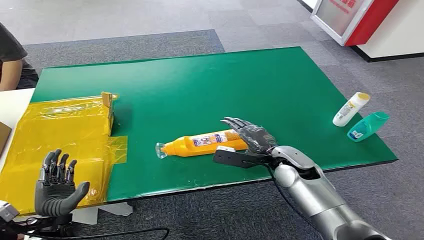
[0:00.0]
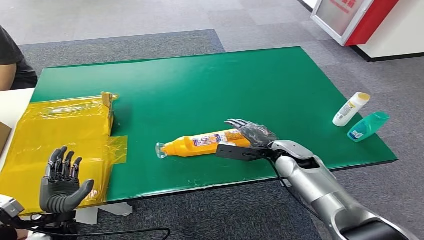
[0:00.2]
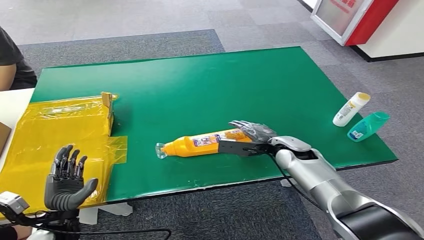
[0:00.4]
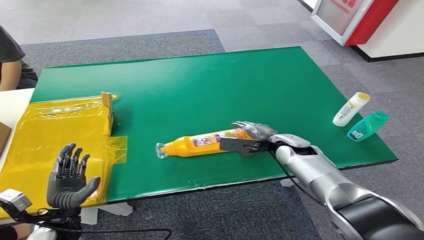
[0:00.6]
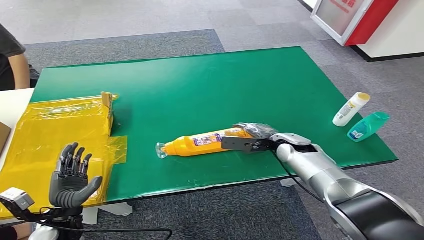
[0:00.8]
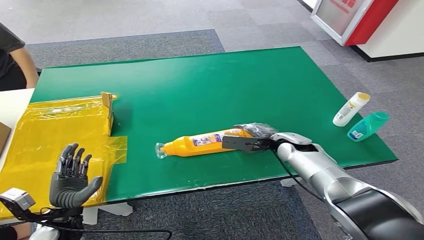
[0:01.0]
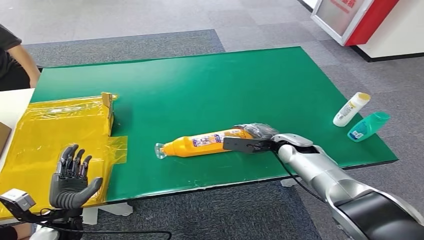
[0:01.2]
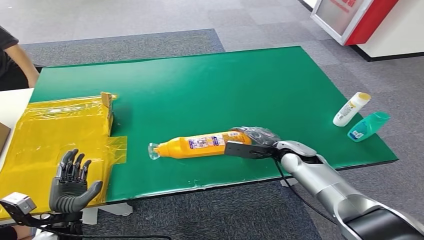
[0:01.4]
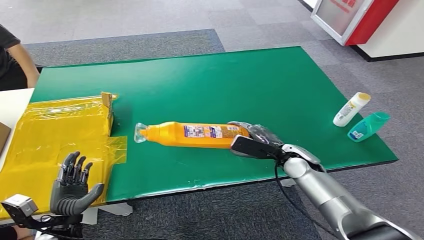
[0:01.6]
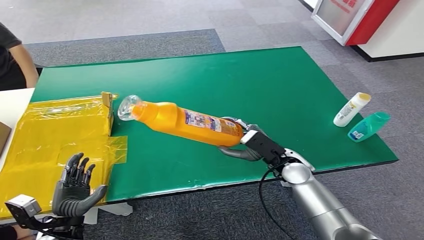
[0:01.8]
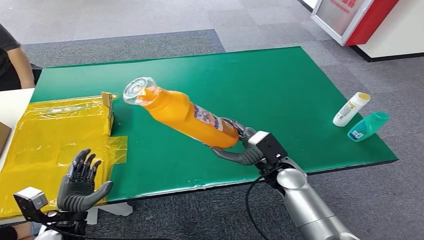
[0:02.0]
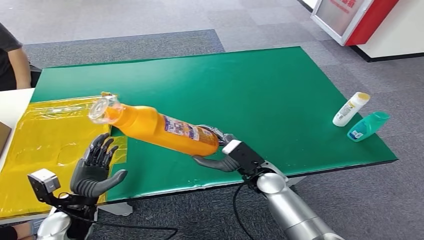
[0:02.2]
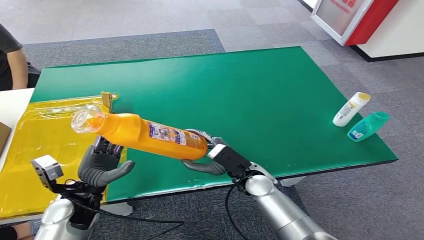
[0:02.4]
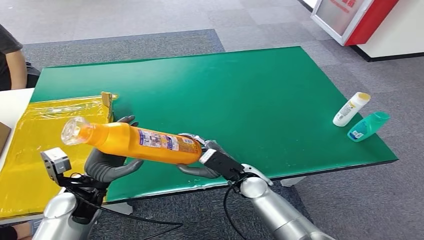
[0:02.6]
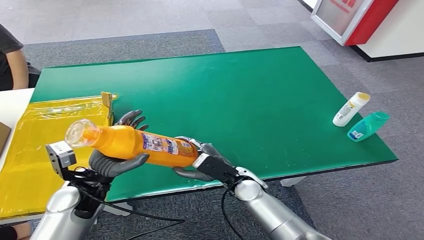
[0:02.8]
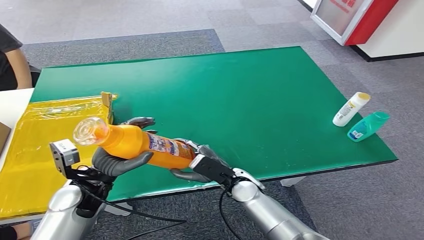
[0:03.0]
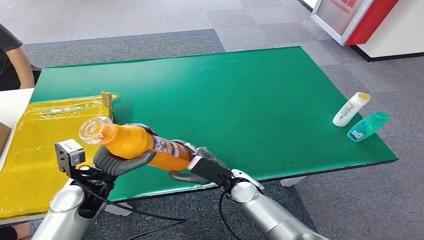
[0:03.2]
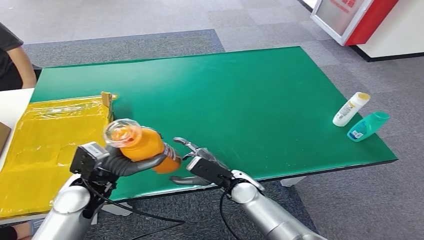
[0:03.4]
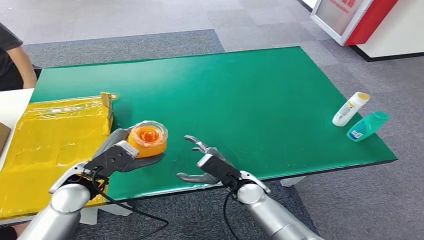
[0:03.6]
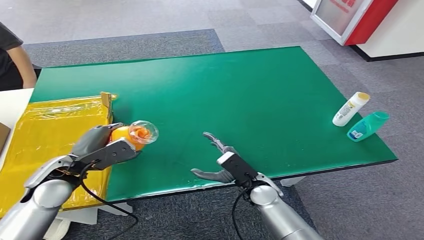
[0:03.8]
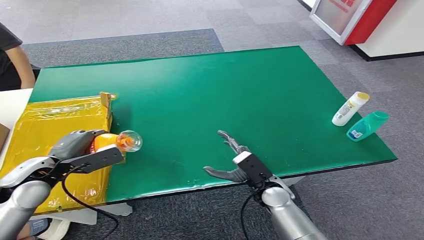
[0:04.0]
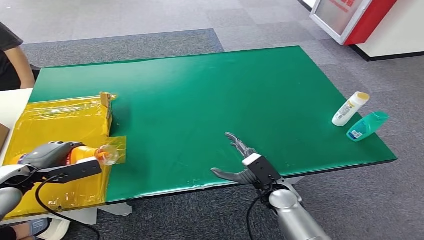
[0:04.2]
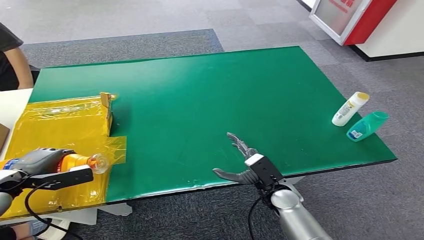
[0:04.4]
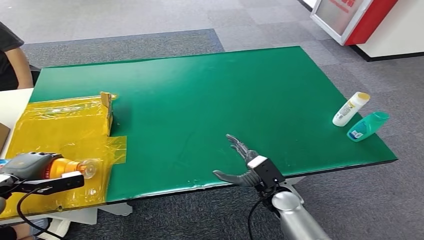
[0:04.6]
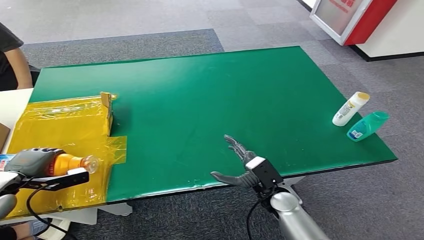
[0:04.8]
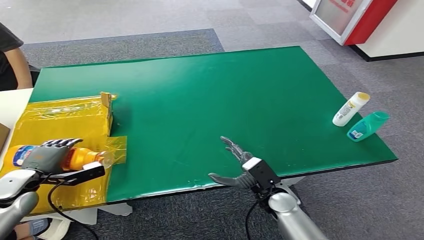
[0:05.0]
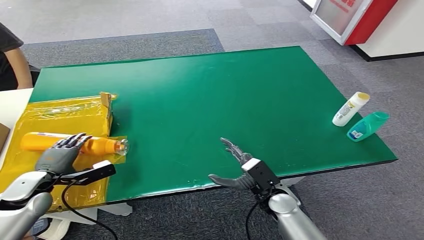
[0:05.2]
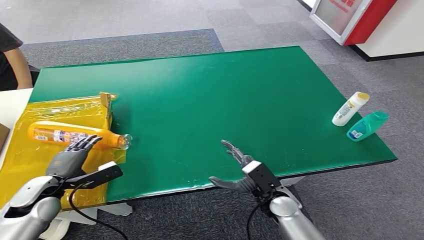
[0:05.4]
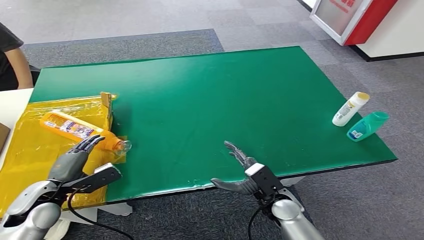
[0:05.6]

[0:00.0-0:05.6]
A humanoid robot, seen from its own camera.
Step, 0:00.0 to 0:02.0: Pick up the bottle from the table.
Step, 0:02.2 to 0:05.6: Turn the bottle to the front side.
0:02.8 to 0:04.2: The left hand travels to the left by approximately 15 cm; the right hand heads to the right, covering approximately 5 cm.
0:04.2 to 0:05.6: The left hand goes about 5 cm downward.

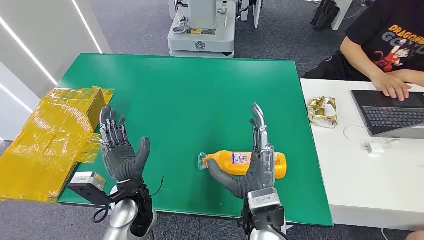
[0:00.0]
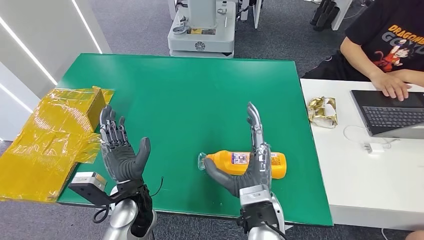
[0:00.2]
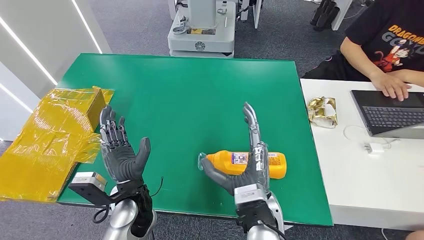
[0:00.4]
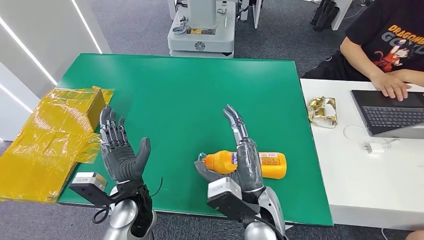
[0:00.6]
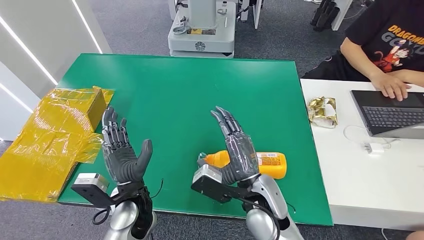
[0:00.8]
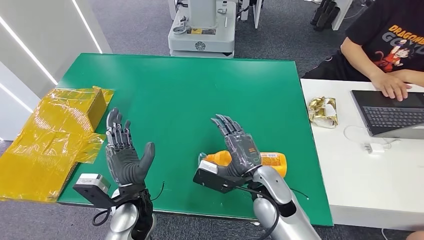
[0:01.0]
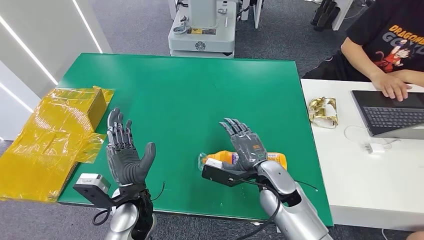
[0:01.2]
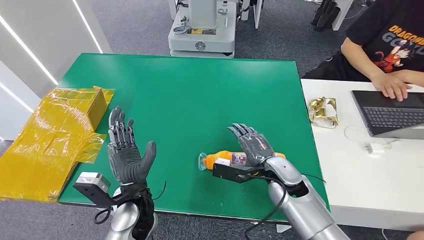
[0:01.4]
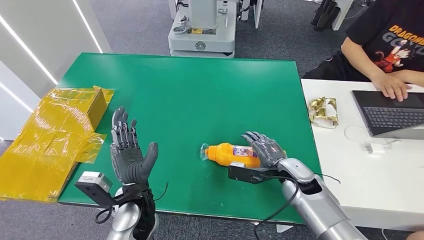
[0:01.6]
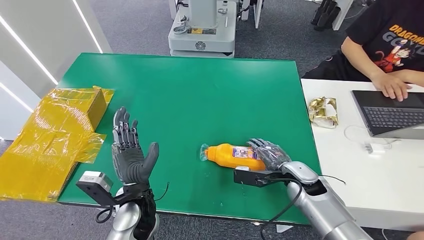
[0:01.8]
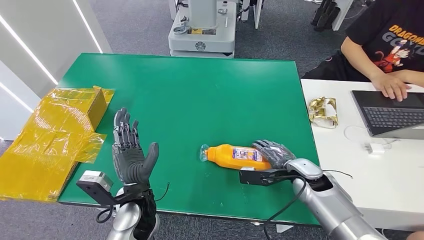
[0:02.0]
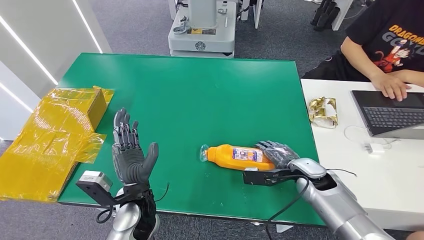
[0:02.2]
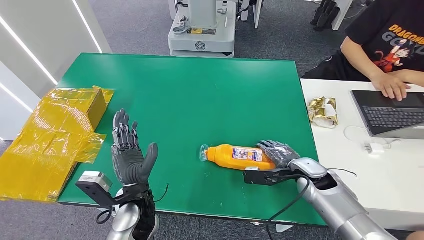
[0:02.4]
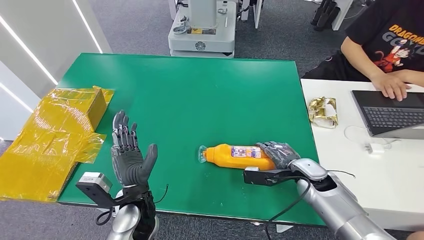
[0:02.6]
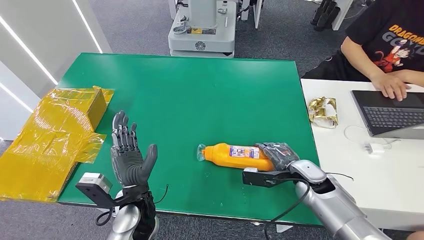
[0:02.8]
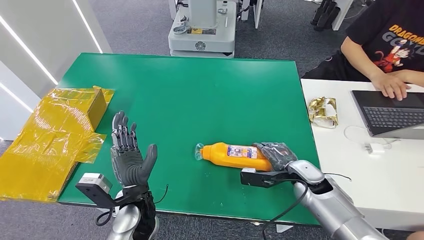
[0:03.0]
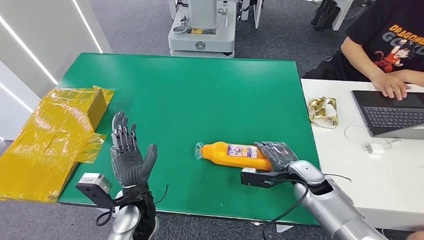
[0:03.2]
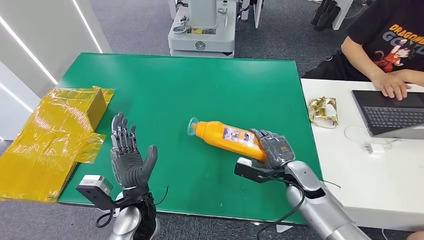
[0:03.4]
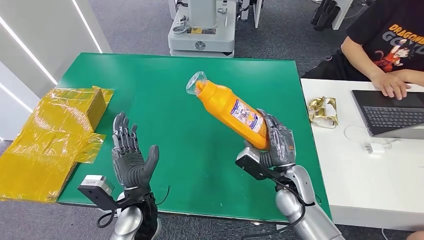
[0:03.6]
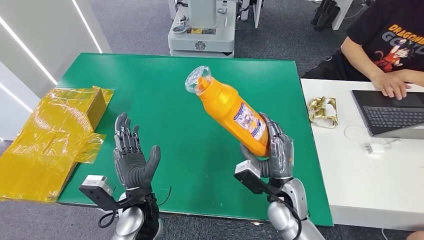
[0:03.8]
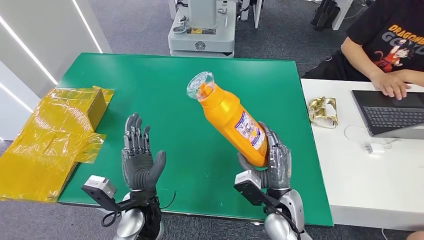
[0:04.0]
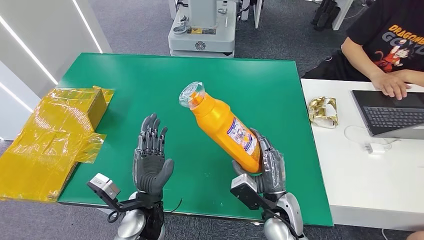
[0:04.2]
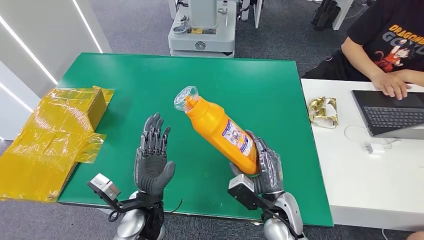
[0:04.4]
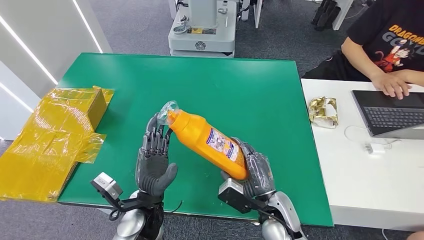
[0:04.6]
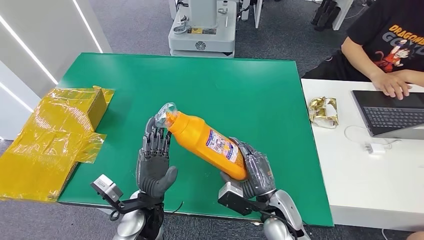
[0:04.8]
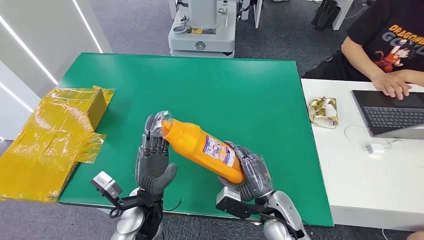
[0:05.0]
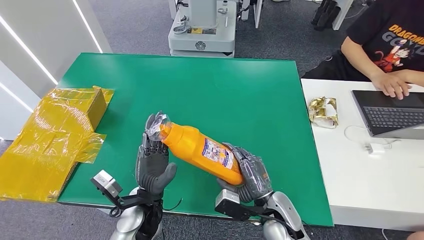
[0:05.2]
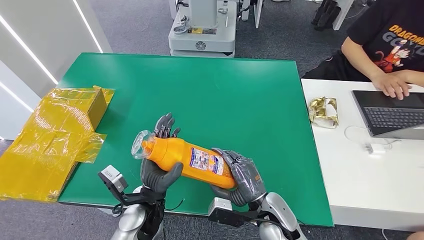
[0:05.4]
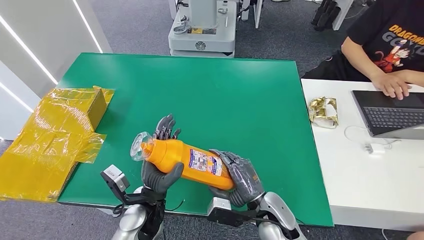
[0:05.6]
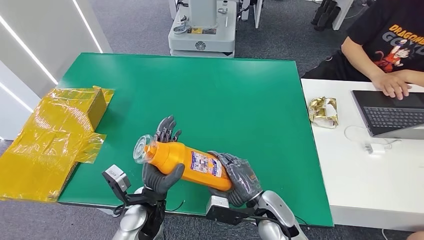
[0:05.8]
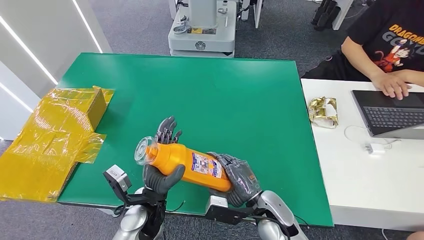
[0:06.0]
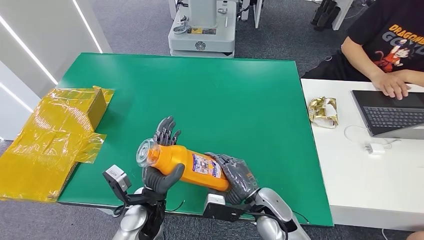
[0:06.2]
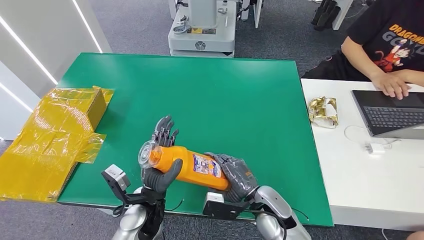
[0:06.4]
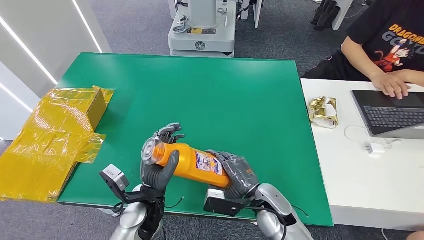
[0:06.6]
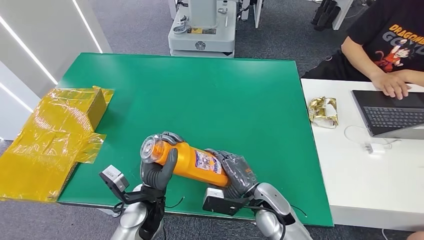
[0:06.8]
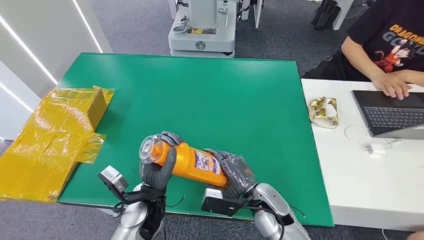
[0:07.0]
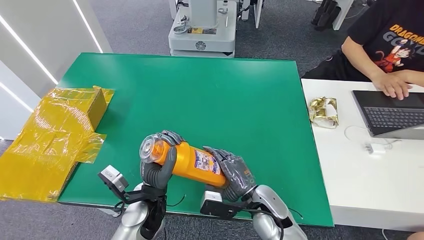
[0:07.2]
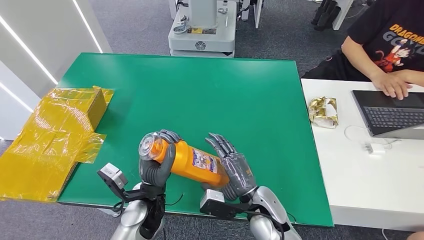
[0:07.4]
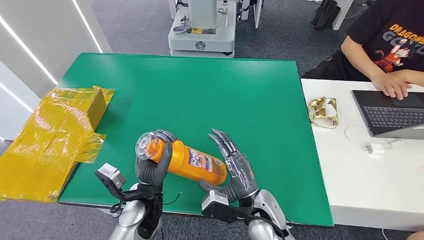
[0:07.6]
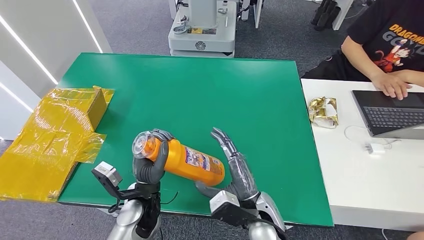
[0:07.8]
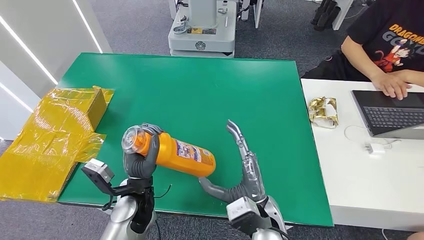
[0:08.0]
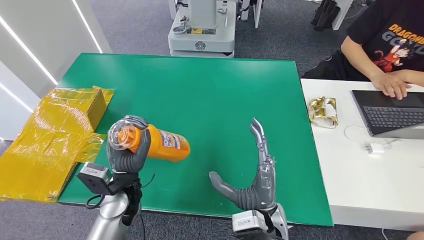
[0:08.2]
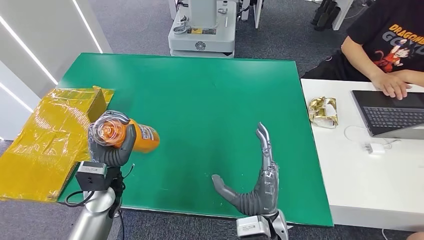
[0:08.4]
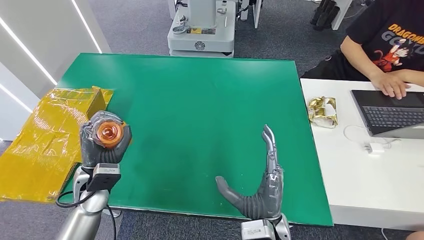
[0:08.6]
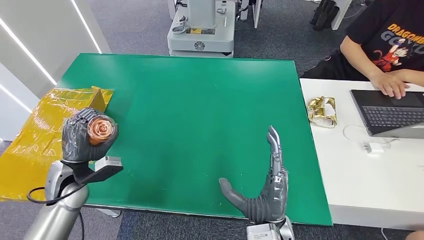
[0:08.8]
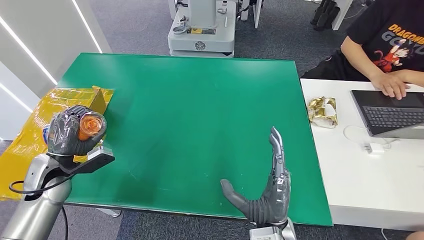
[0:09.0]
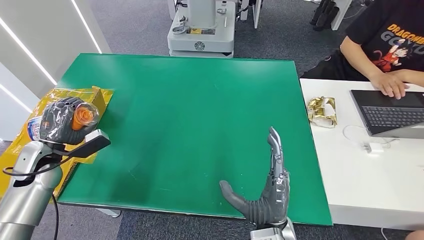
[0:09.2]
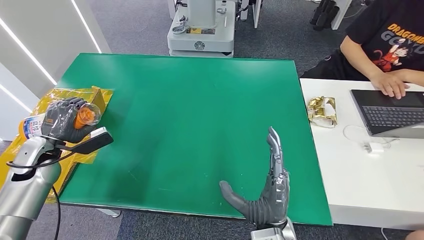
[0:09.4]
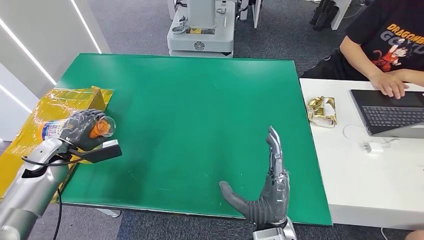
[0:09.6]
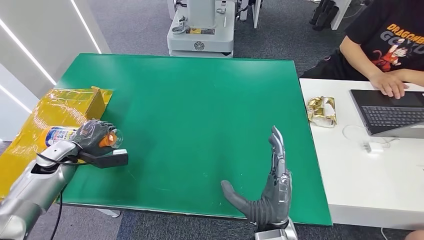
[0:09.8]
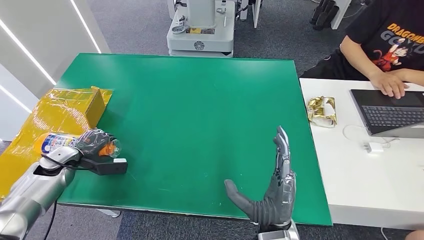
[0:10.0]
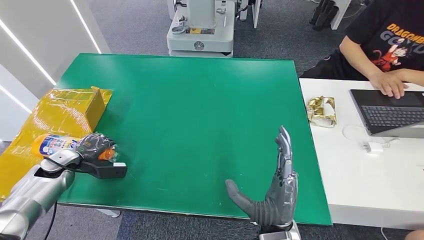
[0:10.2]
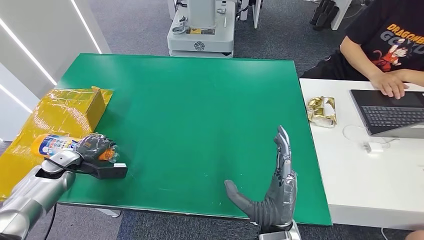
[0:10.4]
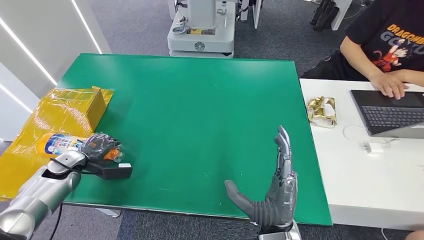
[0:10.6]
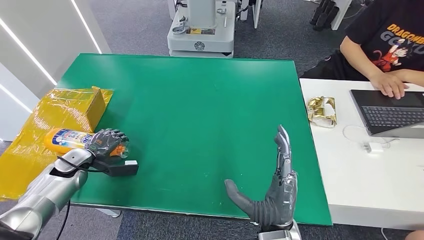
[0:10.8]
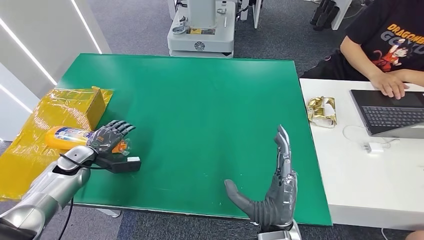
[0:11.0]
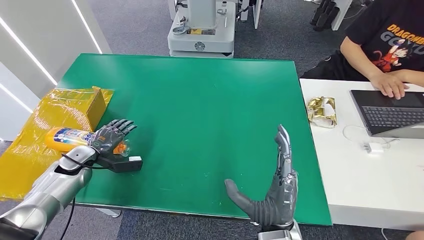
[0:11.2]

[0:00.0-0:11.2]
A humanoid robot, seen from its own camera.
Step, 0:00.0 to 0:04.2: Pick up the bottle from the table.
0:01.6 to 0:03.2: The hands make only small movements.
0:03.2 to 0:04.8: The right hand moves to the left and backward, some 15 cm.
0:04.8 to 0:06.4: The hands stay close to where they were, moving slightly.
0:06.4 to 0:08.0: The right hand changes place by about 10 cm.
0:09.6 to 0:11.2: The left hand shifts some 5 cm downward.
